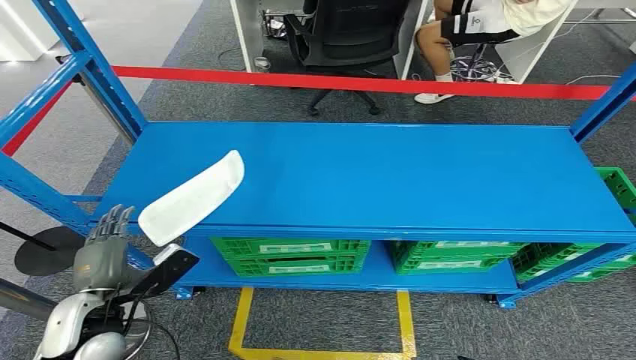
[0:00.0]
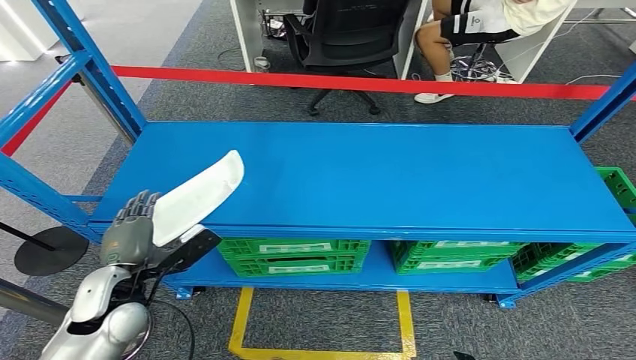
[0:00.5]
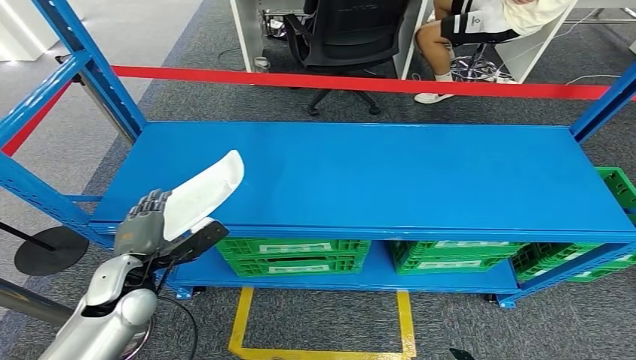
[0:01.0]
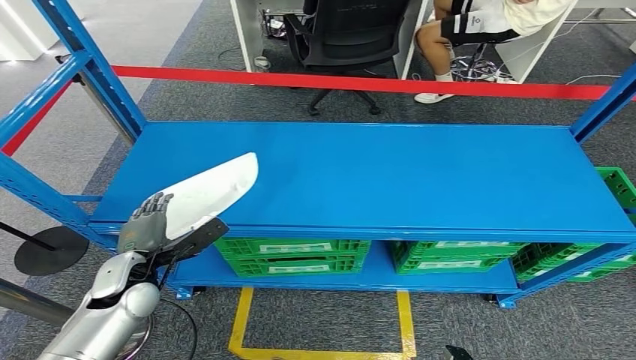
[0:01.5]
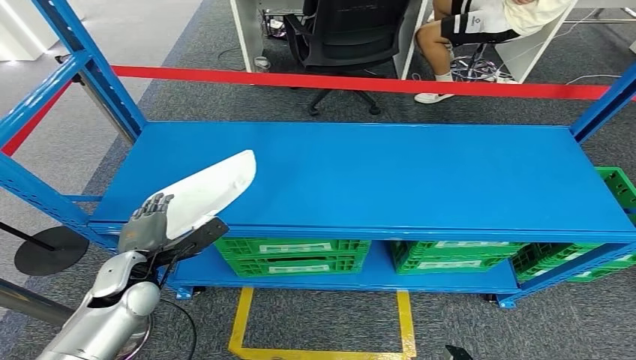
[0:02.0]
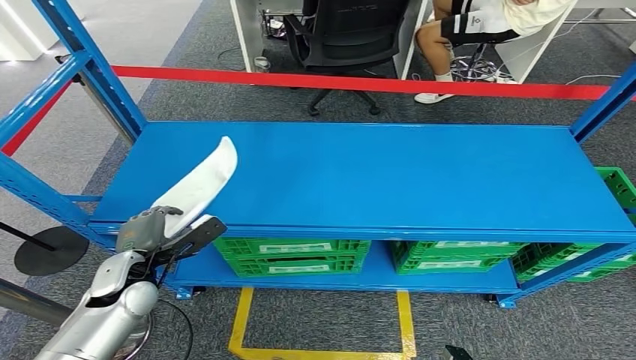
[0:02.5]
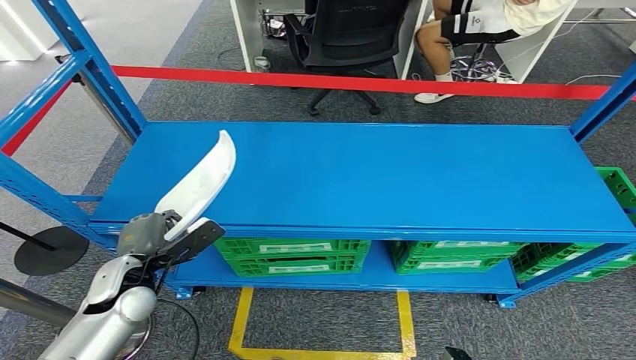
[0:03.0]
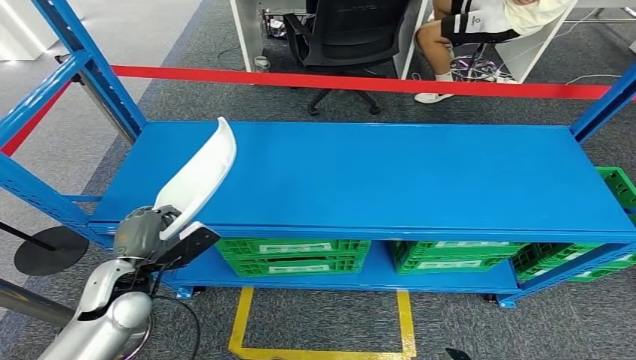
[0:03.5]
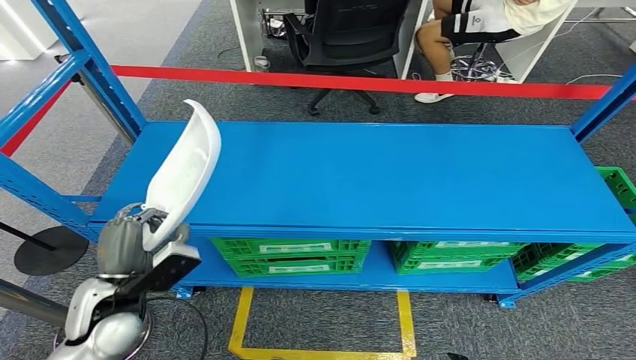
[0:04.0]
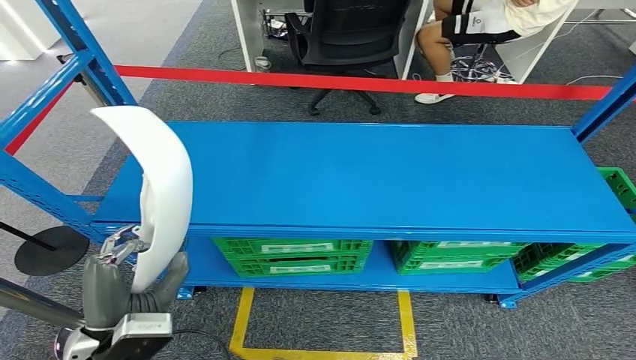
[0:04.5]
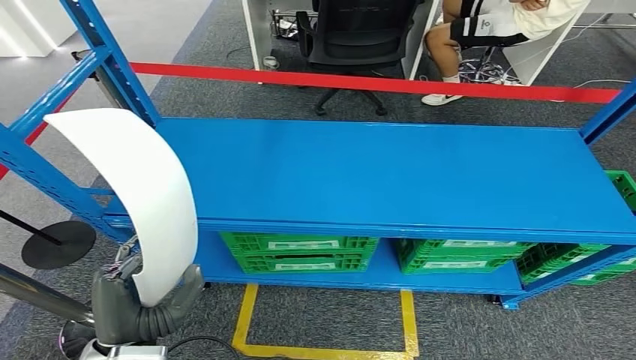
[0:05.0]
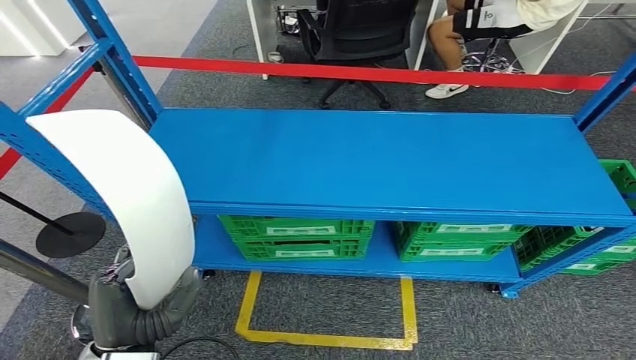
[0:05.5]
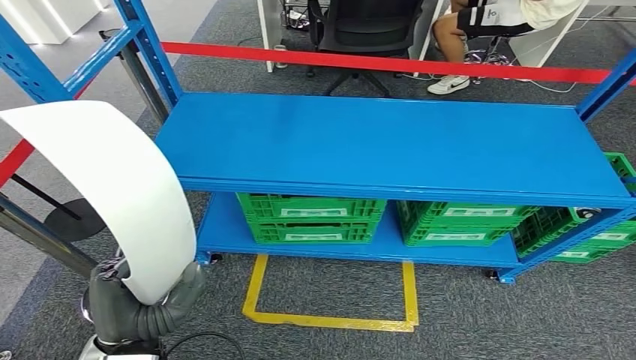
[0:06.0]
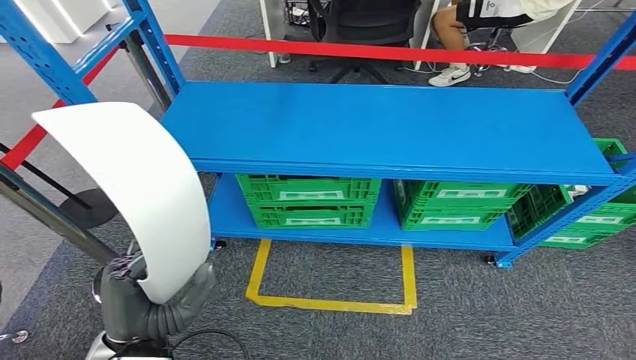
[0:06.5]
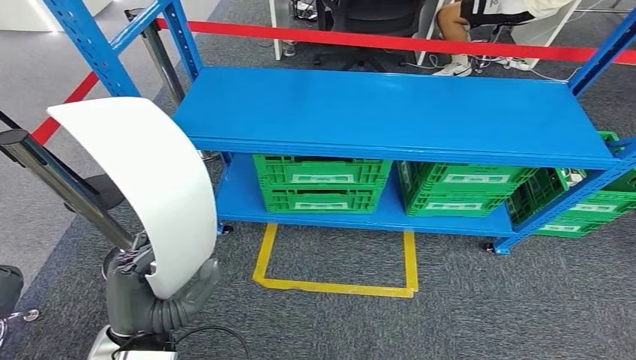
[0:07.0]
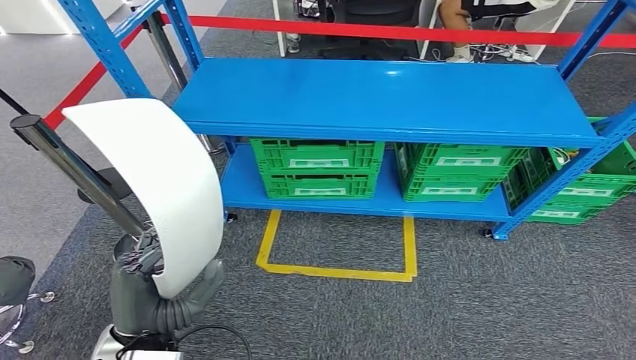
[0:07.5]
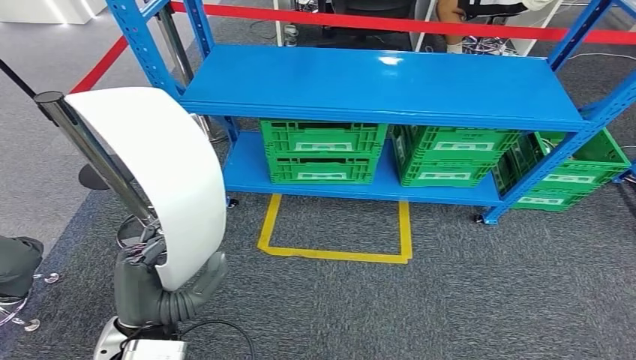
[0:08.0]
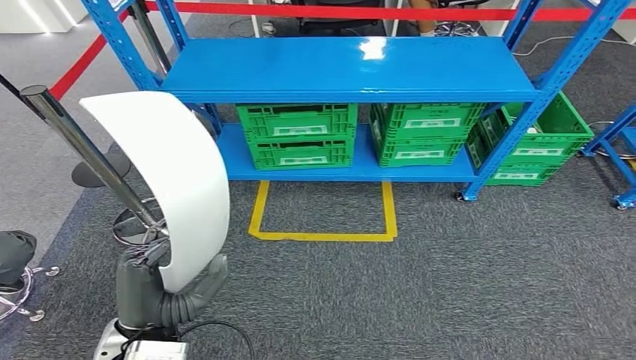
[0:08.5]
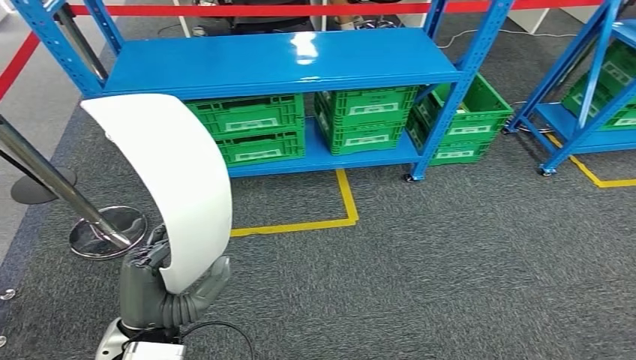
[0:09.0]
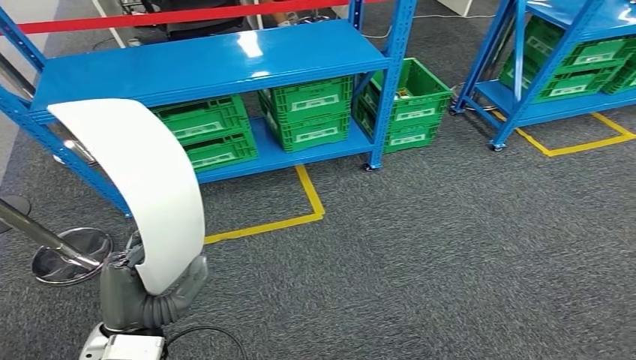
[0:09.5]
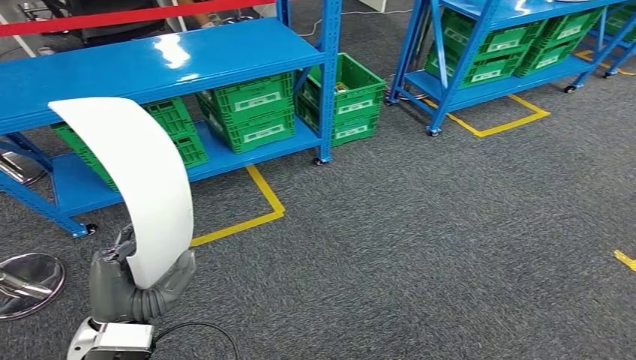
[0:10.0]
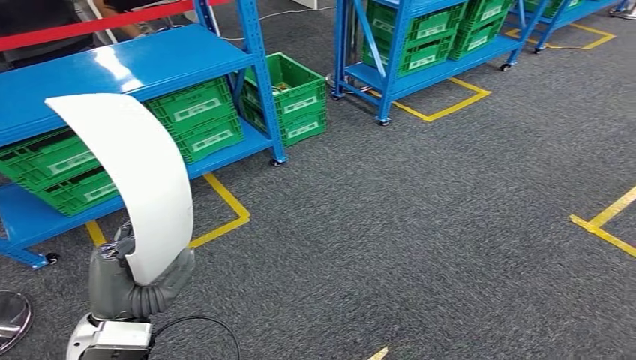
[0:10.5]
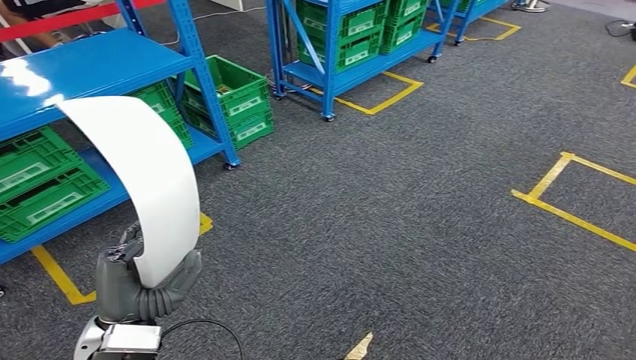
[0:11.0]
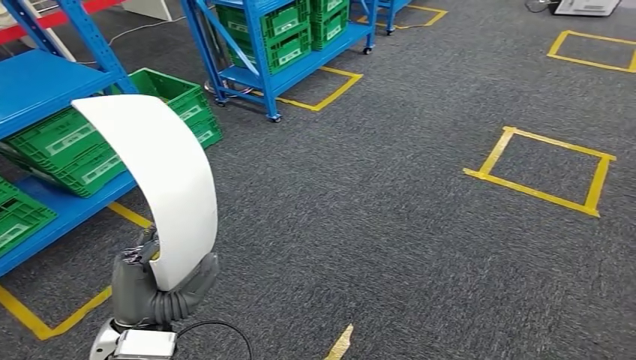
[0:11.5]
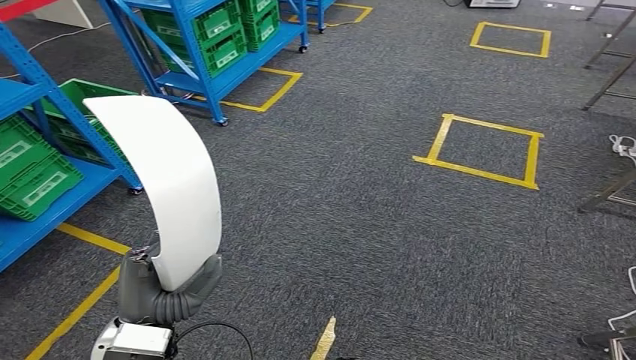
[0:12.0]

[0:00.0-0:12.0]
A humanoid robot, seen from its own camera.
Step, 0:00.0 to 0:03.5: Take small components from the rack.
0:02.0 to 0:04.0: The left hand heads backward, covering some 5 cm.

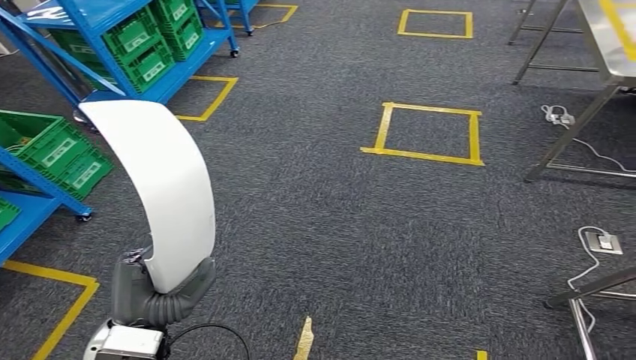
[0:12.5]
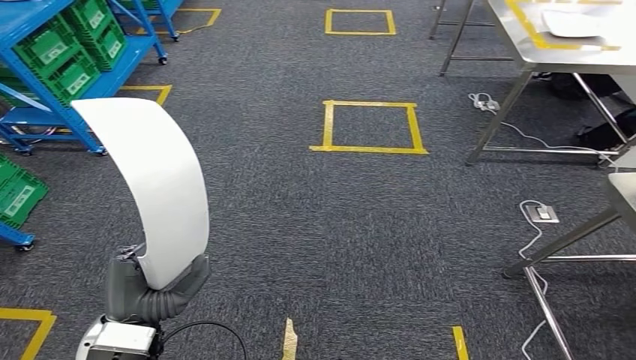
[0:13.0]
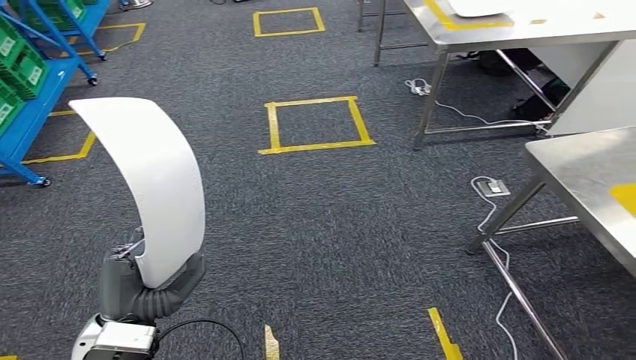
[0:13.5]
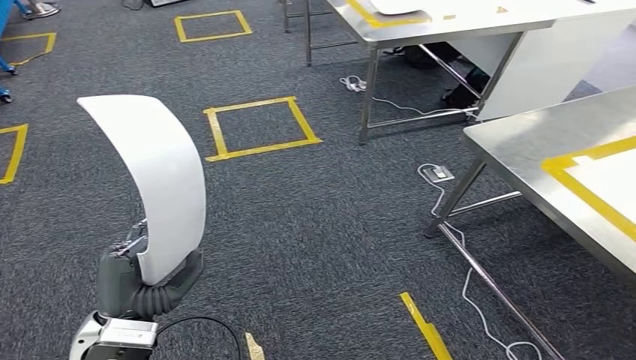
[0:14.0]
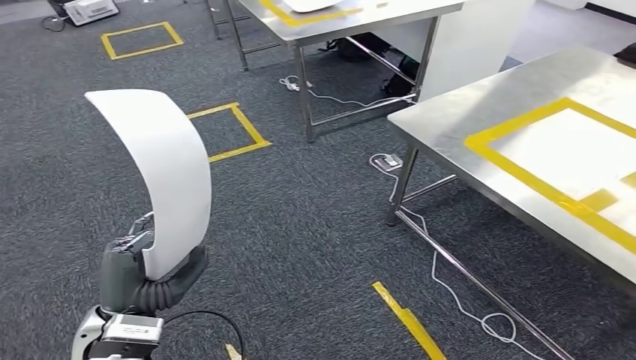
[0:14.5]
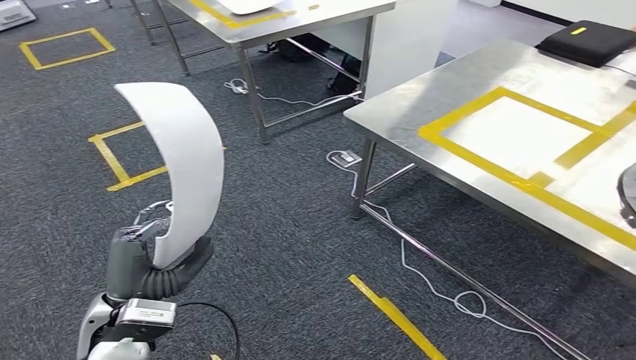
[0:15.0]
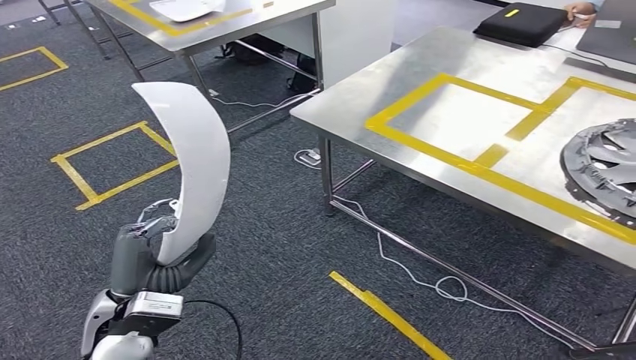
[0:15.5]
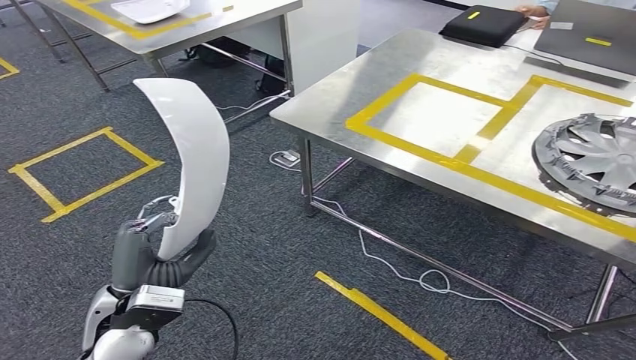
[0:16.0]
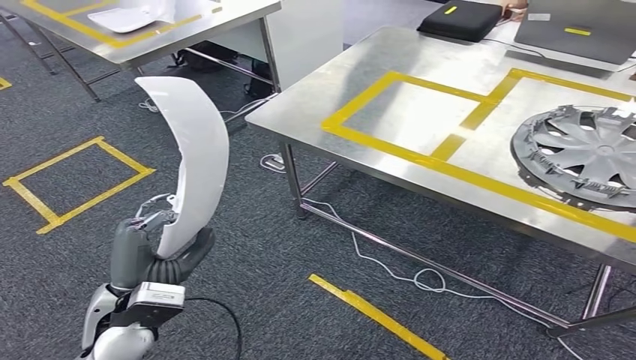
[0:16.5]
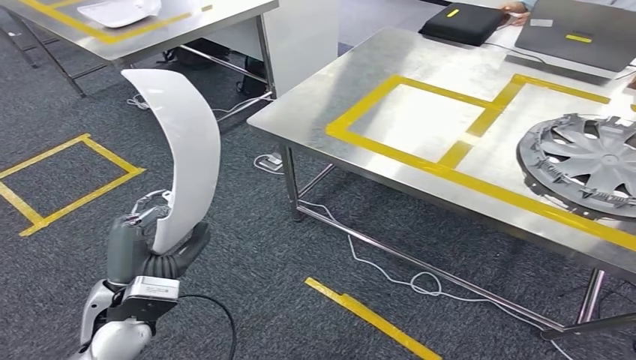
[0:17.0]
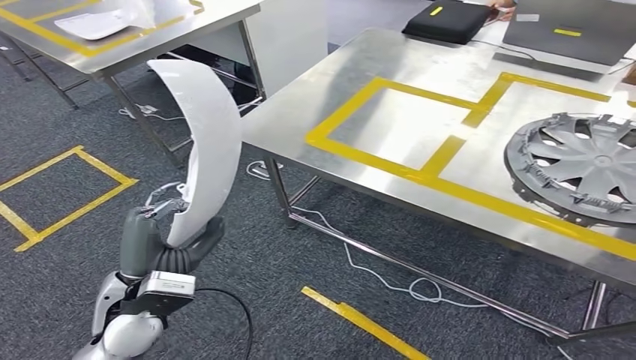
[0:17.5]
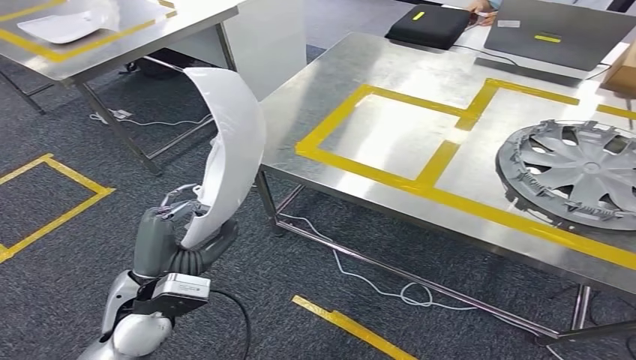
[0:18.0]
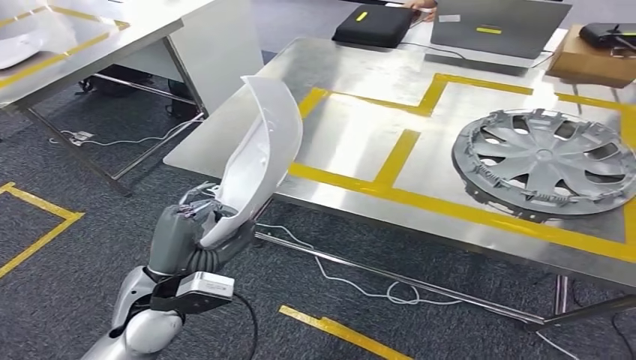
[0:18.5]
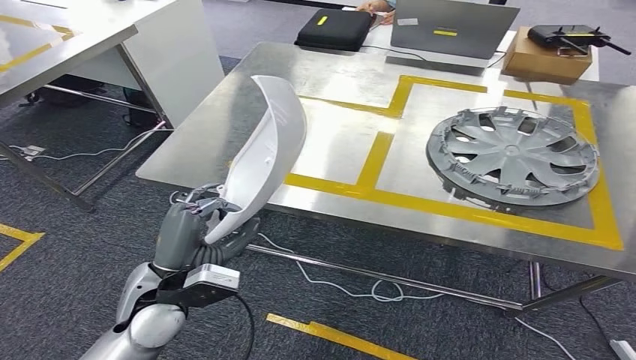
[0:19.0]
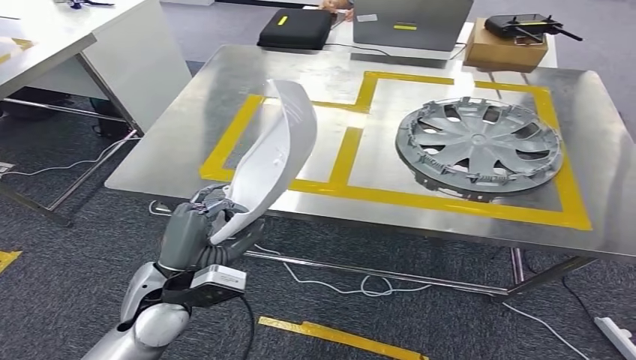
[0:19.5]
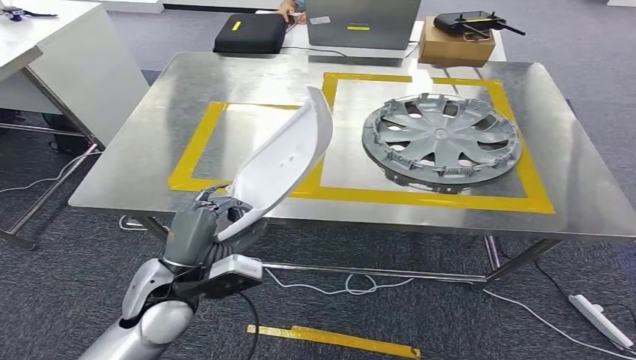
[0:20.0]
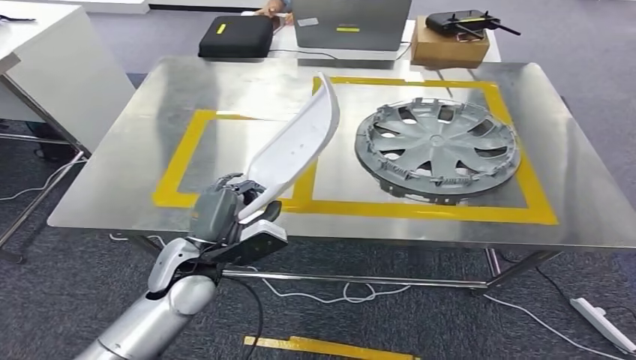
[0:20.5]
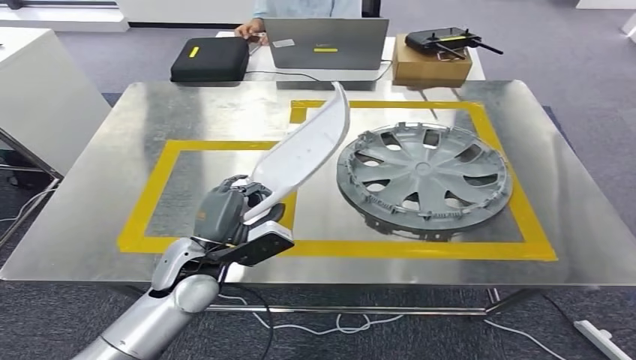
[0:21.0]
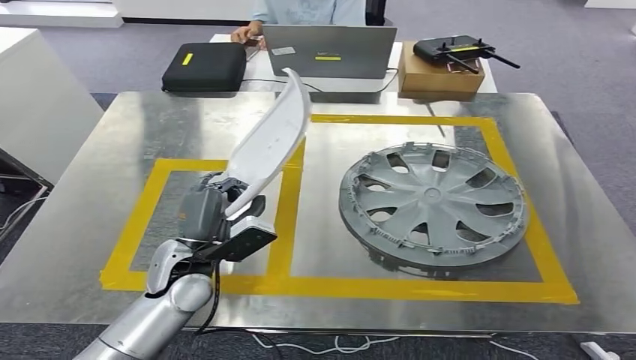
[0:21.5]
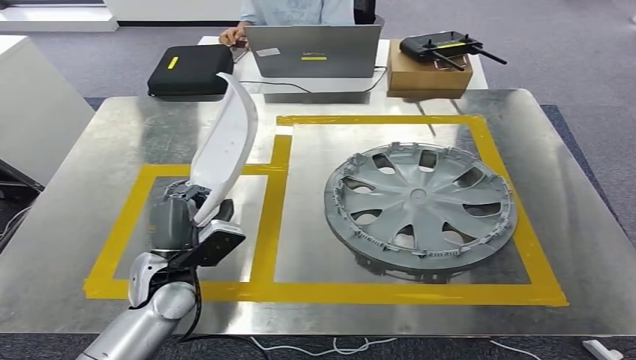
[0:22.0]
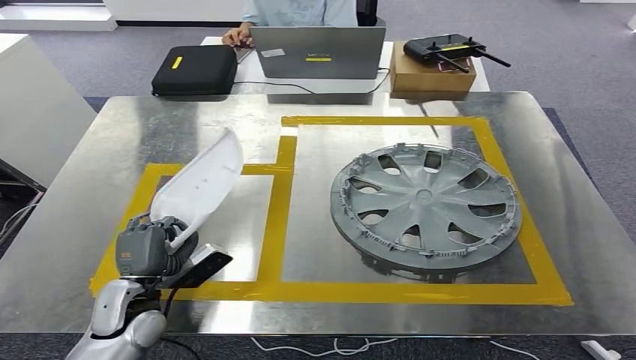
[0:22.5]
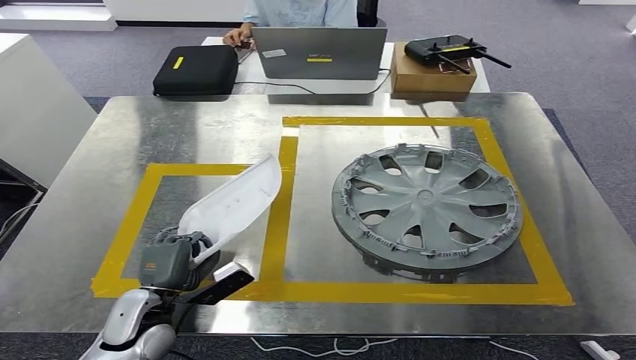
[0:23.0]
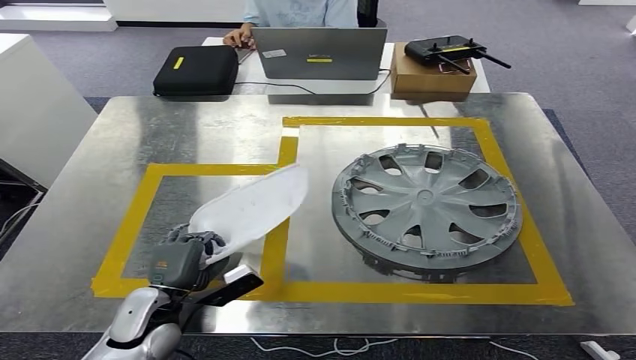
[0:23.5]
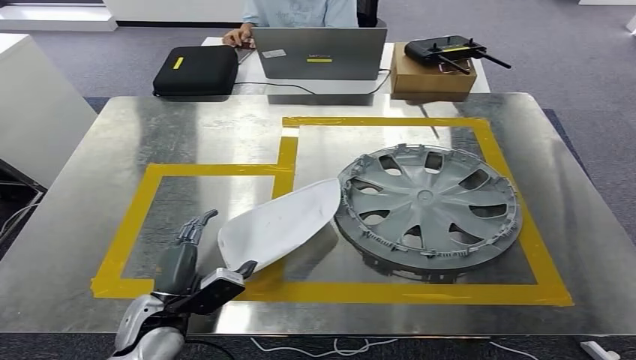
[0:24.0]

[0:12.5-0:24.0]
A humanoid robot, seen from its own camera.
Step, 0:12.5 to 0:18.5: Move the small parts to the workbench.
